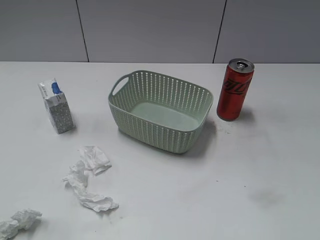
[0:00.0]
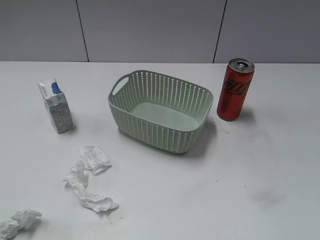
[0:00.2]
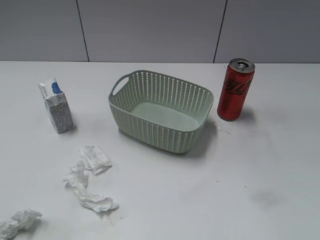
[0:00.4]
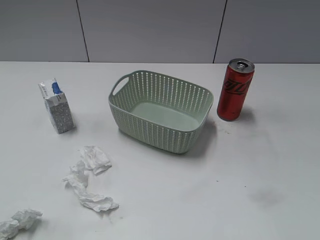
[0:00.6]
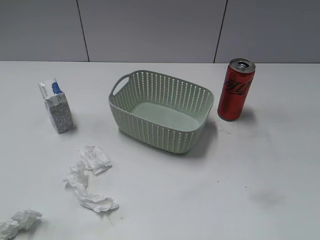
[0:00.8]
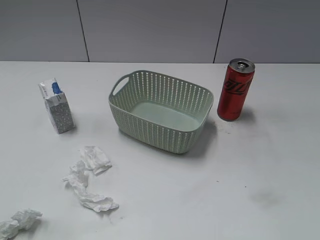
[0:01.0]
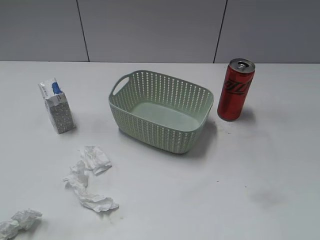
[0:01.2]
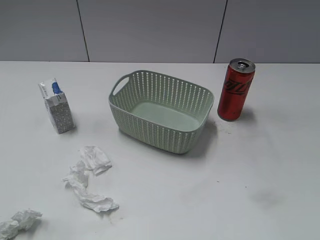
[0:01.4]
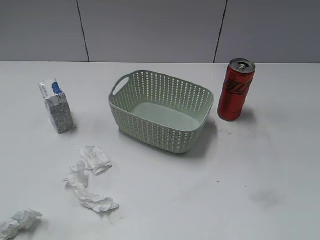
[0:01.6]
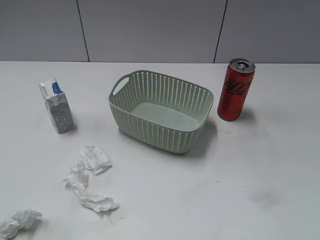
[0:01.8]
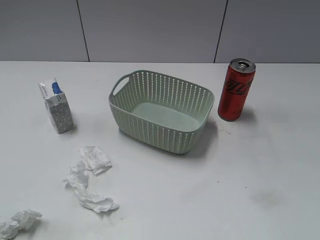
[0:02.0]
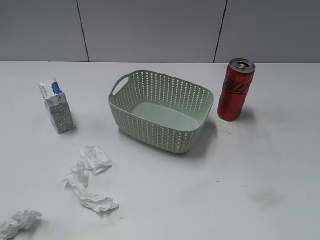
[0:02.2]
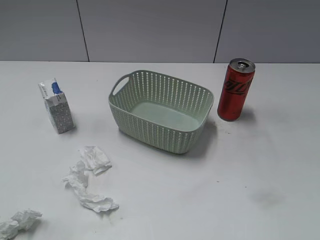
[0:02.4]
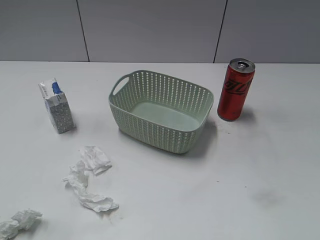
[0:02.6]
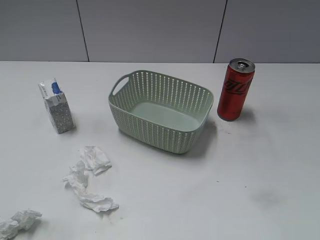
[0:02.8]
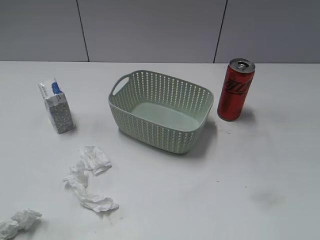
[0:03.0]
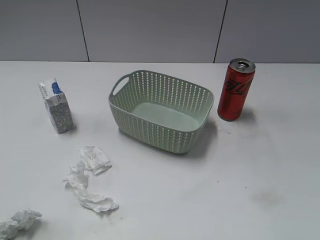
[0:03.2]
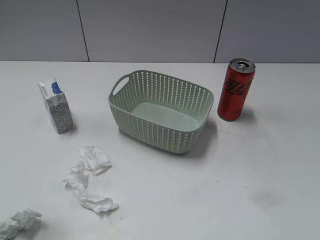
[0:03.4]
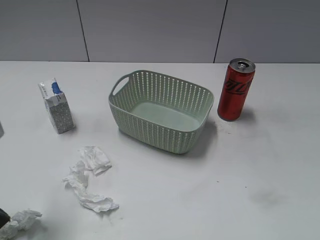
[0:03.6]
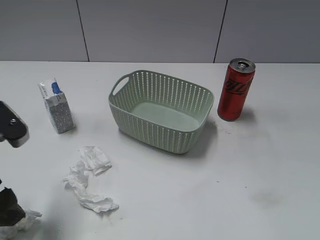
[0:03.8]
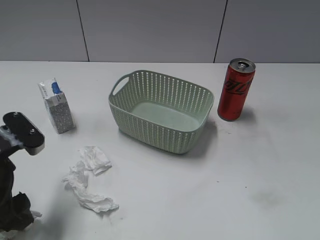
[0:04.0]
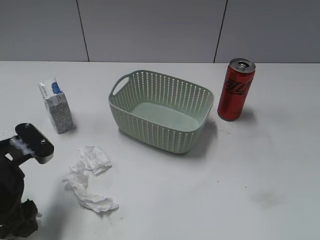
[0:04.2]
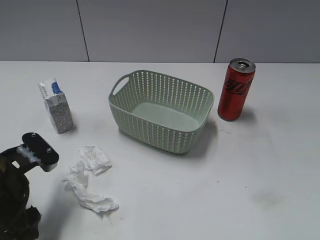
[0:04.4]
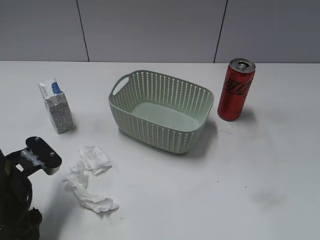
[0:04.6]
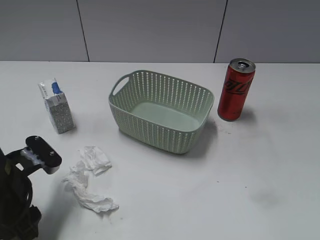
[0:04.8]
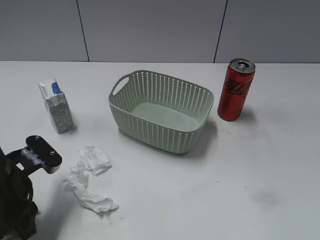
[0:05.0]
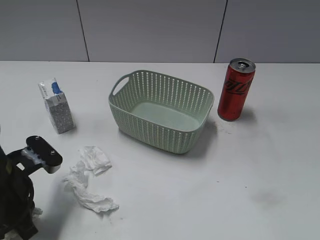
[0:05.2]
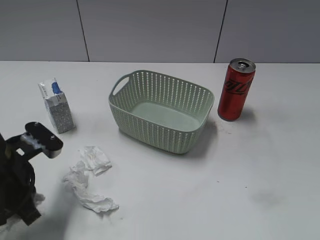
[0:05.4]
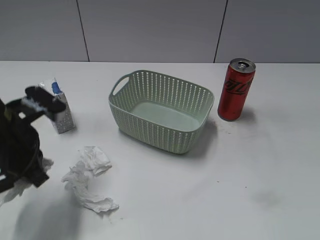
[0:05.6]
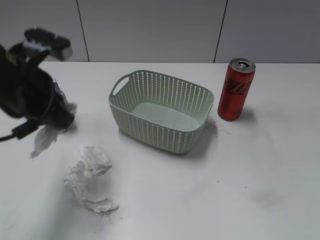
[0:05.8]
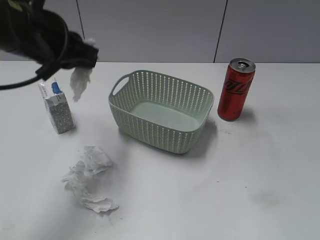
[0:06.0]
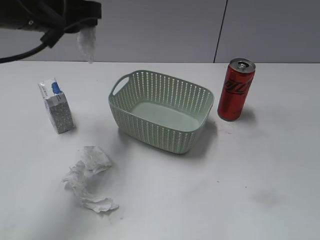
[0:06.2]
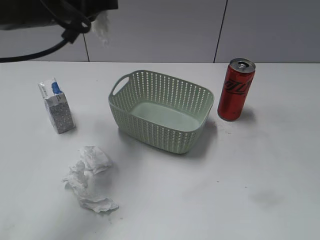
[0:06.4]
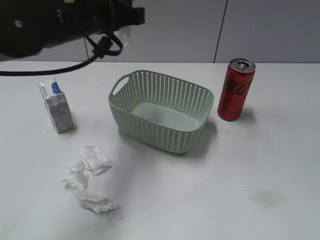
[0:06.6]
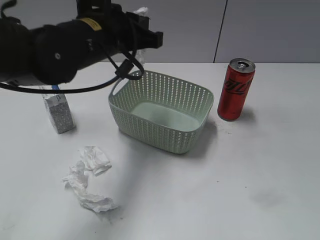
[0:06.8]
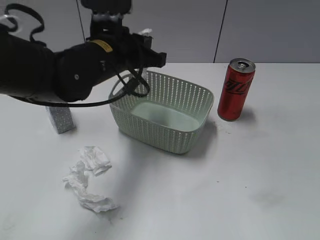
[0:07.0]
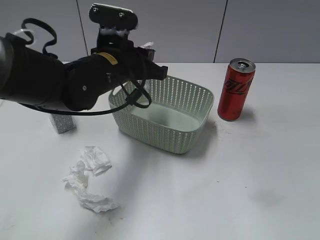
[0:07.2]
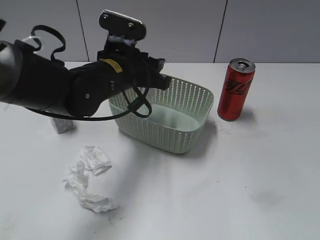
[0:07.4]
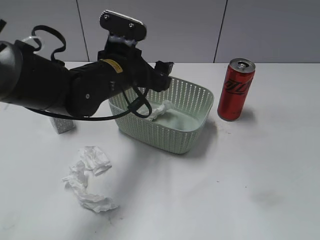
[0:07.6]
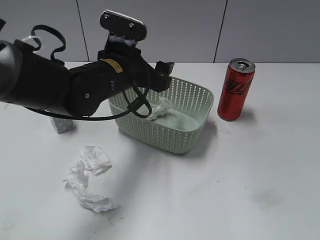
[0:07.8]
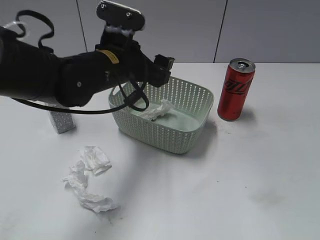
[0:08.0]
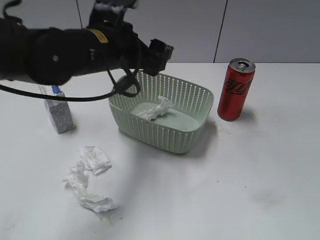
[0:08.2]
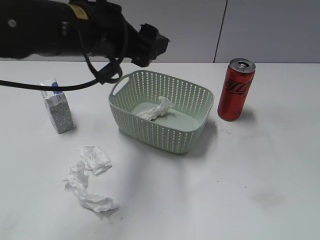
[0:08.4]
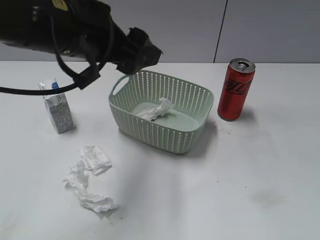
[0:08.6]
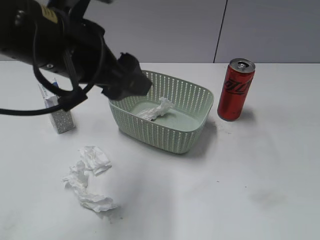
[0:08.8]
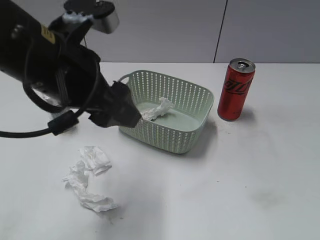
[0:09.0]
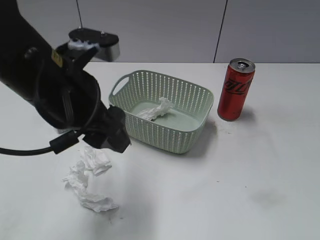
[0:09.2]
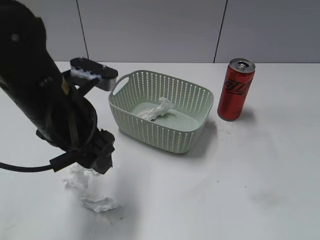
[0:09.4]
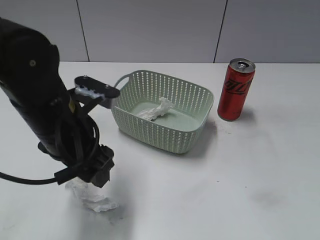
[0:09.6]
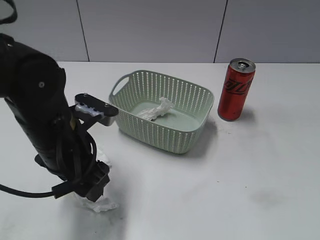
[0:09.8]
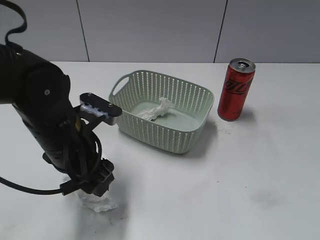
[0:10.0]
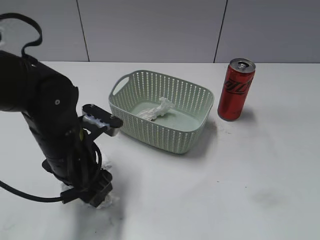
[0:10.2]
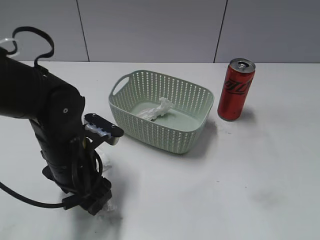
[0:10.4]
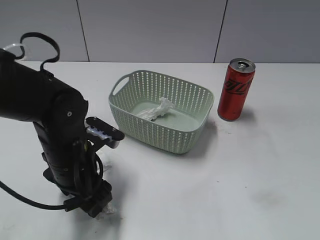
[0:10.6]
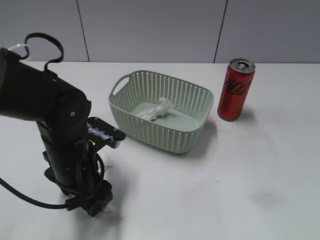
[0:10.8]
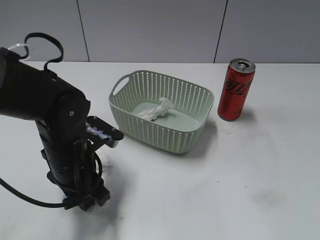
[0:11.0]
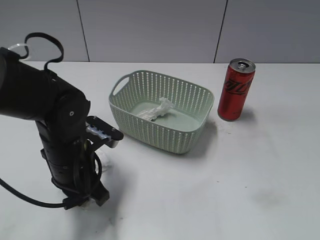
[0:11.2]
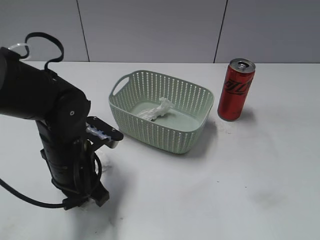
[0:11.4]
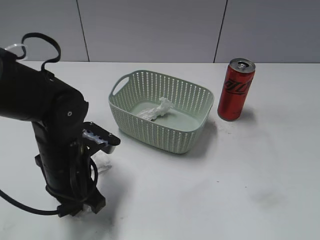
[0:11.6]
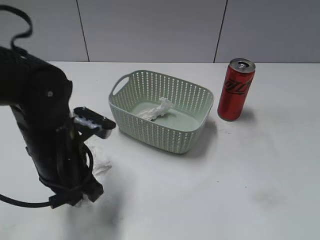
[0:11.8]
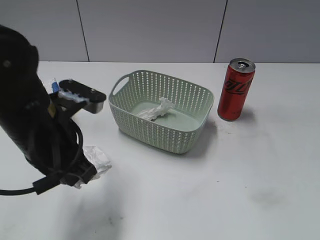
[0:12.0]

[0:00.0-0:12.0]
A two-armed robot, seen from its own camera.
Step, 0:03.2 to 0:05.2: Grasp the waste paper with left gripper.
Step, 0:05.4 to 0:07.8: Place the waste paper in the basket with left gripper.
Step, 0:08.0 to 0:11.2: Grasp the waste paper with left gripper.
0:03.0 to 0:04.4: The left gripper goes some 20 cm downward, forward and to the right.
0:04.4 to 0:06.0: The left gripper shifts about 20 cm upward and forward, and closes its fingers.
0:06.0 to 0:07.6: The left gripper heads downward and to the right, covering approximately 15 cm, and opens.
0:07.6 to 0:09.0: The left gripper is displaced backward and upward by some 15 cm.
0:09.0 to 0:10.4: The left gripper goes some 15 cm downward.
0:10.4 to 0:12.0: The left gripper shifts roughly 10 cm upward, and closes.

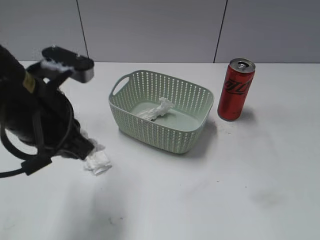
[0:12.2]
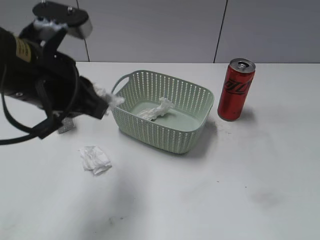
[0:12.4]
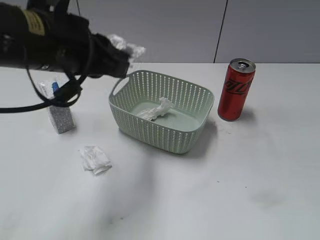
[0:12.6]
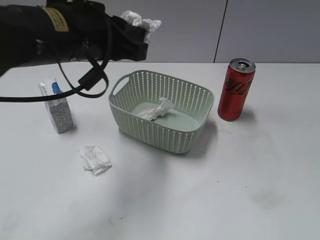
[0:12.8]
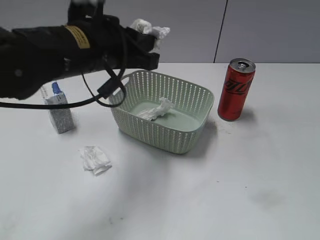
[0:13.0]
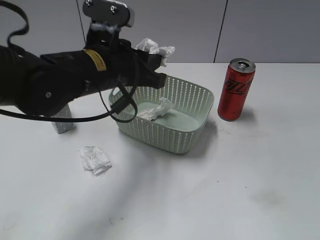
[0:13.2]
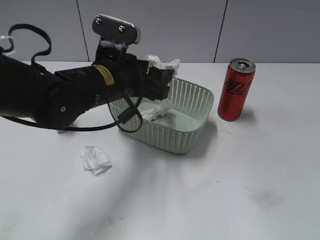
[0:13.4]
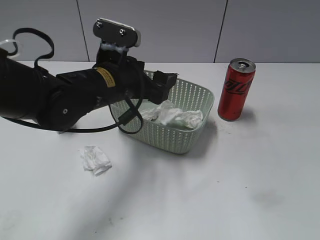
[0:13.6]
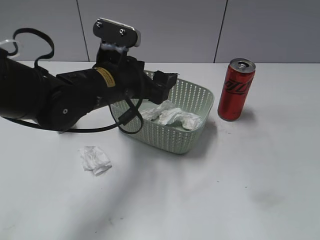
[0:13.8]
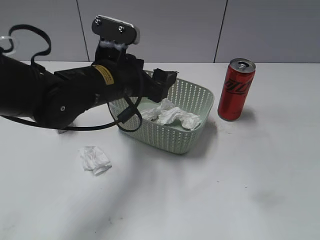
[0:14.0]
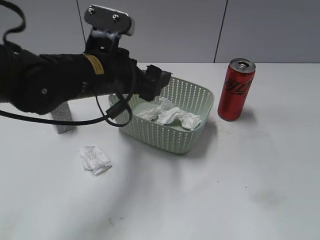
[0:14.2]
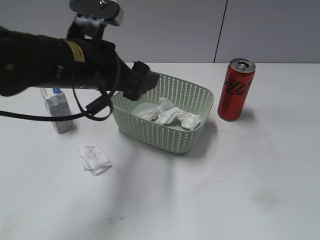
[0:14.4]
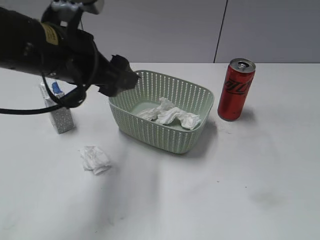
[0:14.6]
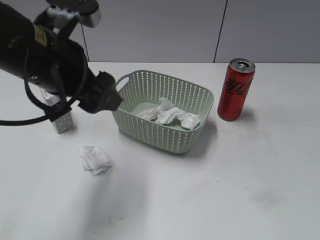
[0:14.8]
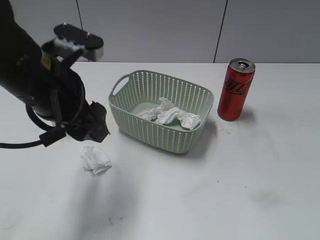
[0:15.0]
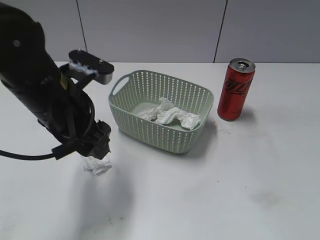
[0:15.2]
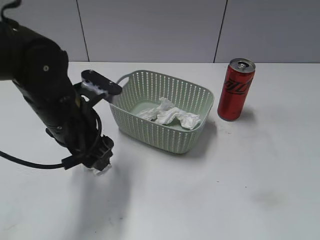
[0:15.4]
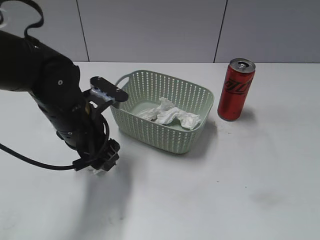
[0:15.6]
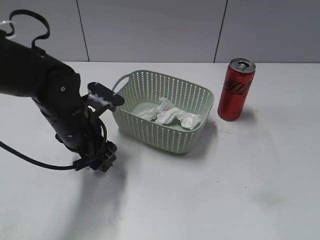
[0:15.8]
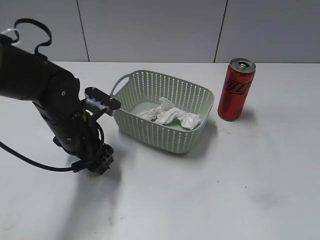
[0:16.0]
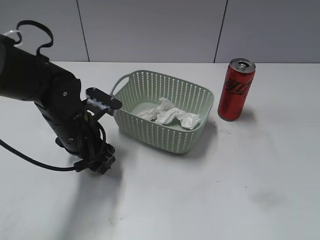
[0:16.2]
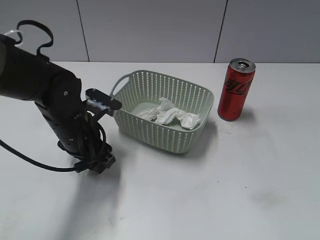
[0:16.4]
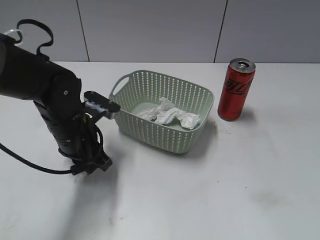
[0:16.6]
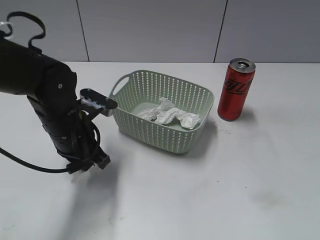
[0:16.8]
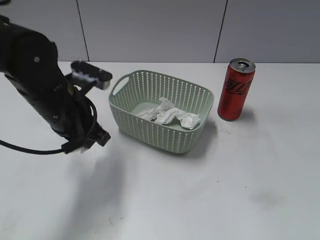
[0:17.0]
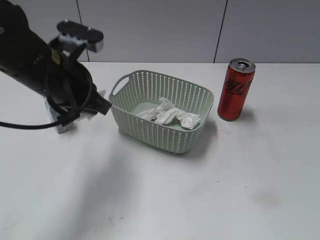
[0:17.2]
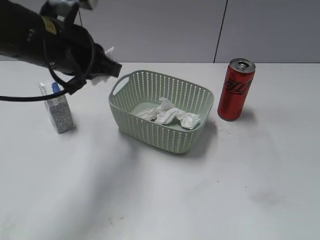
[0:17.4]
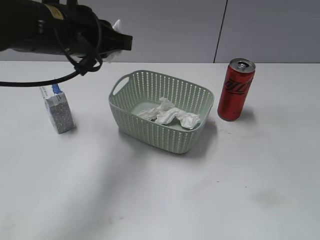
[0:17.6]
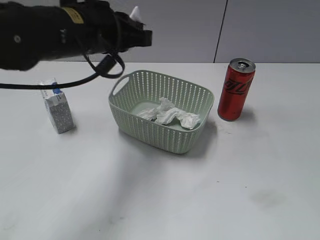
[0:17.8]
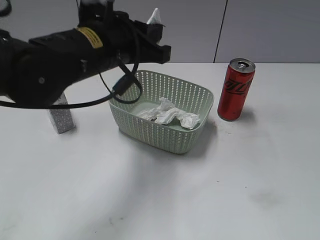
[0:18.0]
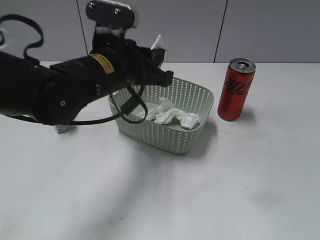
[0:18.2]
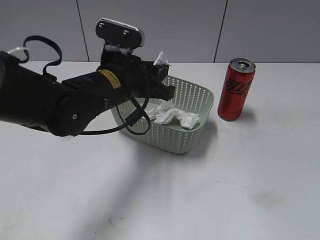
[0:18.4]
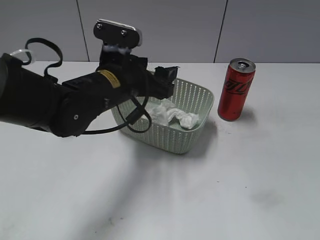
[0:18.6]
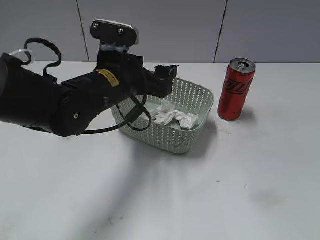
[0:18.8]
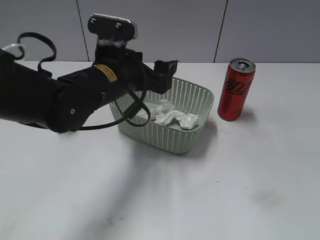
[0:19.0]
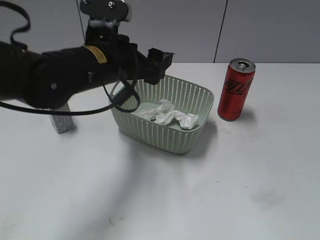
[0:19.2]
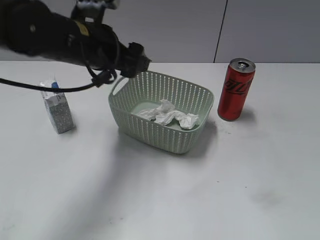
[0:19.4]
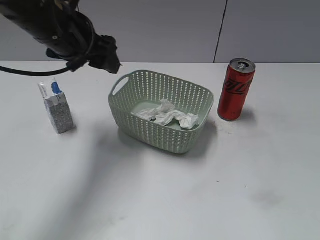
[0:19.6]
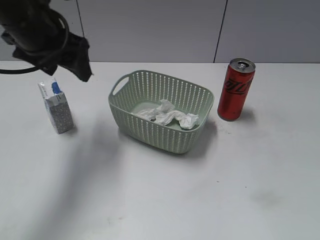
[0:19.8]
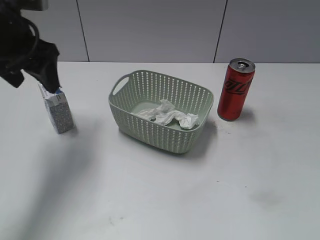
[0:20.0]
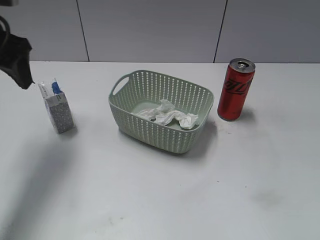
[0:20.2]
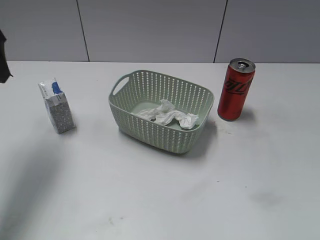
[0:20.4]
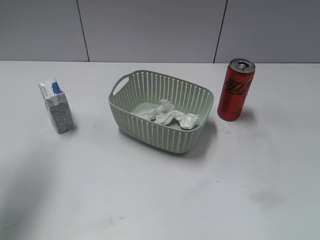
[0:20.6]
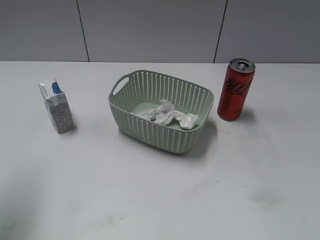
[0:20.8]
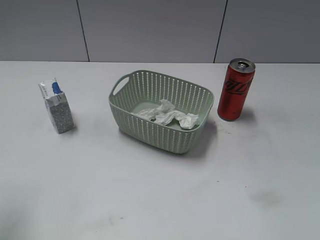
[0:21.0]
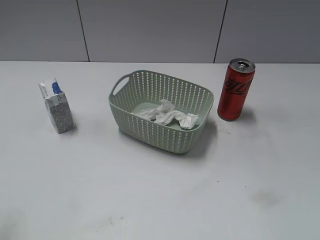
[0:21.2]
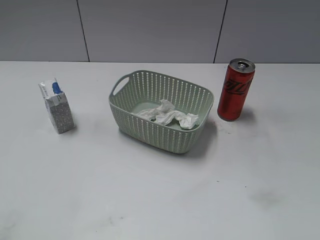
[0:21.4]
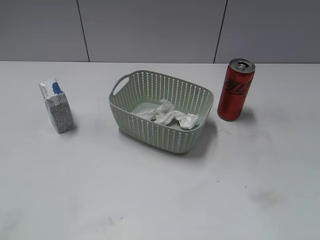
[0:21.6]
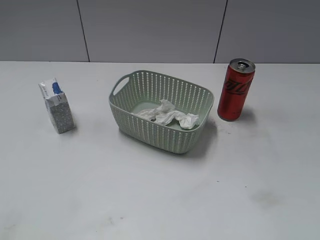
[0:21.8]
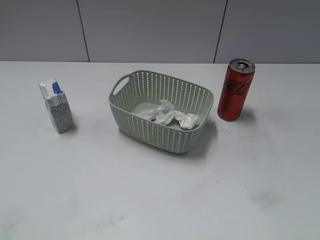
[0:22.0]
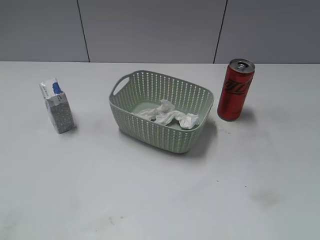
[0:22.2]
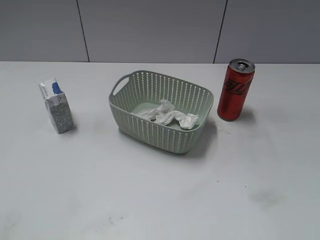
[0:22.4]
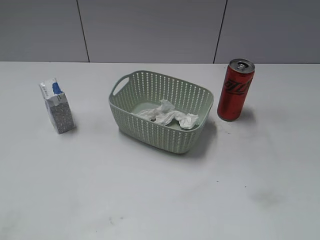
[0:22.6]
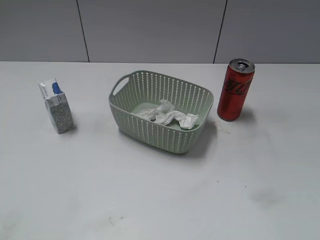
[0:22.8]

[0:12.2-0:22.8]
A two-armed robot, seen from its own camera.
Step, 0:12.2 to 0:14.0: Place the waste paper in the basket with left gripper.
Step, 0:14.2 to 0:16.8: Grasp the waste paper with left gripper.
Step, 0:17.0 to 0:18.8: Place the waste paper in the basket with left gripper.
0:12.2 to 0:13.8: The left gripper moves forward, to the right and downward, roughly 15 cm, and opens its fingers.
0:13.8 to 0:15.2: The left gripper travels backward and to the left by approximately 10 cm, and reaches approximately 10 cm upward, then returns.
0:15.2 to 0:16.8: The left gripper travels downward by some 5 cm, and closes its fingers.
0:16.8 to 0:18.2: The left gripper moves upward and to the right, about 10 cm.
0:18.2 to 0:19.8: The left gripper moves to the left and upward, roughly 15 cm, and opens up.
0:19.8 to 0:21.2: The left gripper goes roughly 25 cm backward and to the left.
